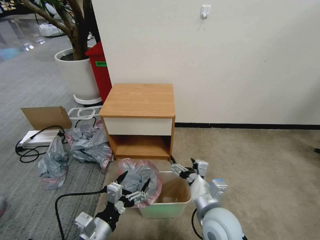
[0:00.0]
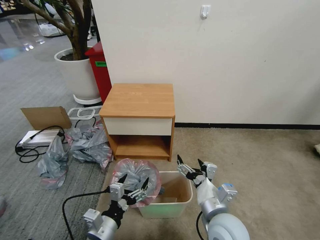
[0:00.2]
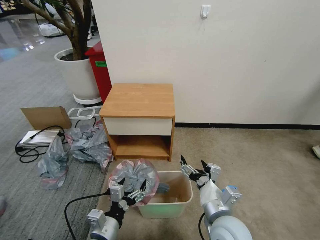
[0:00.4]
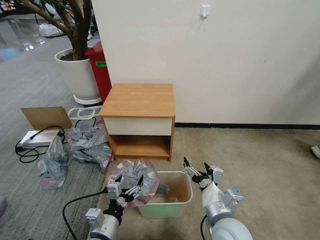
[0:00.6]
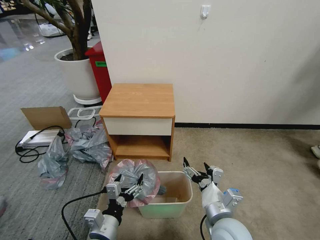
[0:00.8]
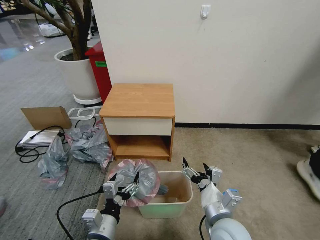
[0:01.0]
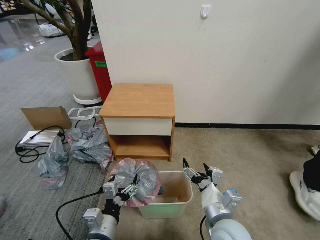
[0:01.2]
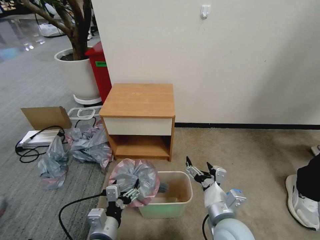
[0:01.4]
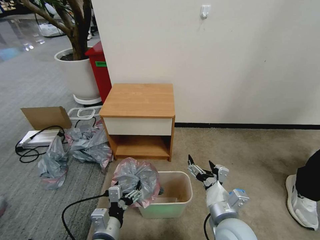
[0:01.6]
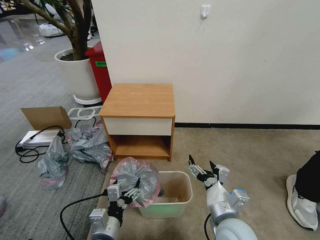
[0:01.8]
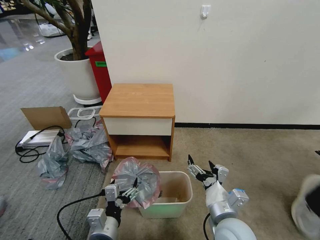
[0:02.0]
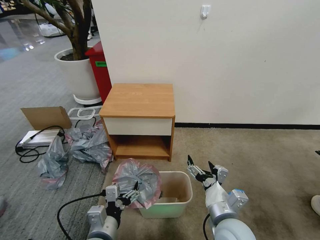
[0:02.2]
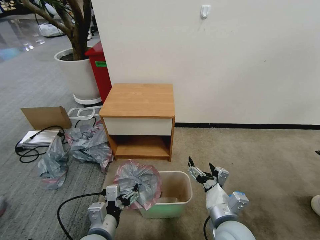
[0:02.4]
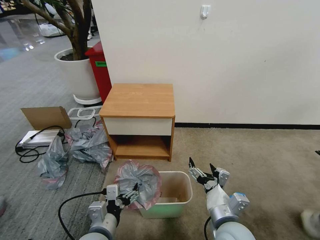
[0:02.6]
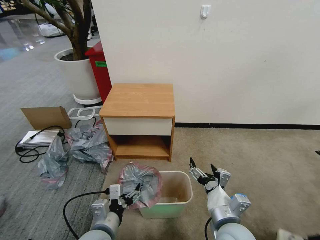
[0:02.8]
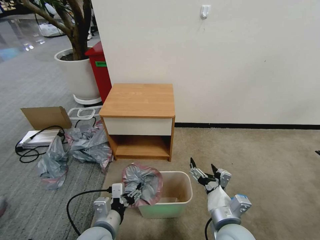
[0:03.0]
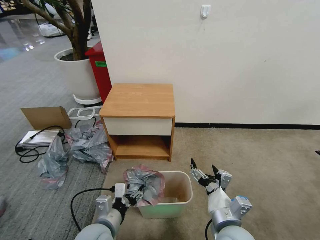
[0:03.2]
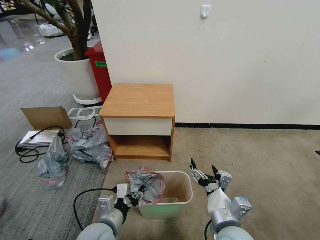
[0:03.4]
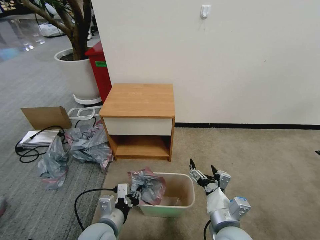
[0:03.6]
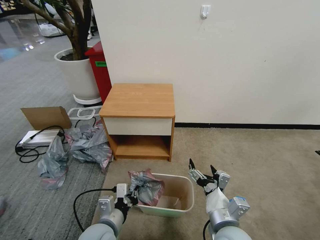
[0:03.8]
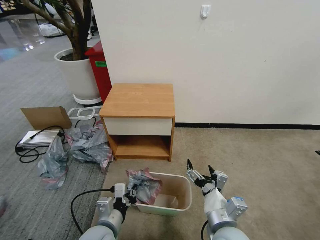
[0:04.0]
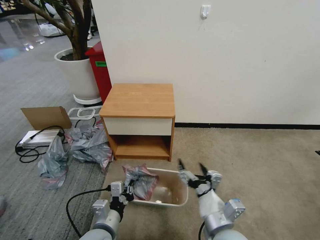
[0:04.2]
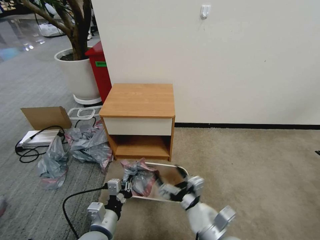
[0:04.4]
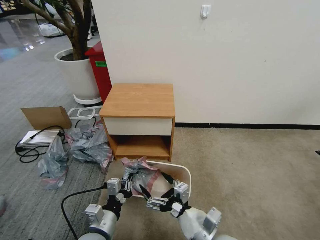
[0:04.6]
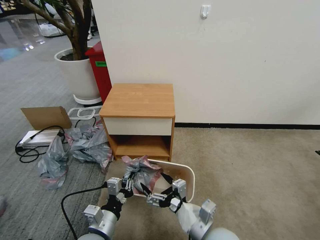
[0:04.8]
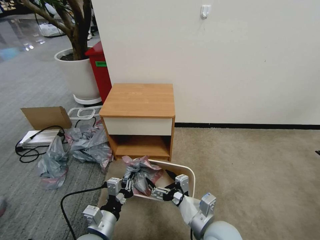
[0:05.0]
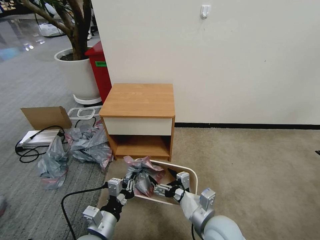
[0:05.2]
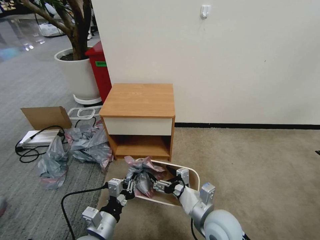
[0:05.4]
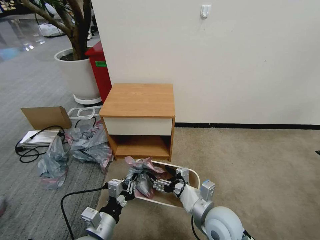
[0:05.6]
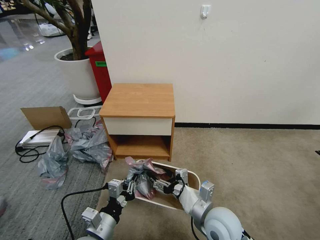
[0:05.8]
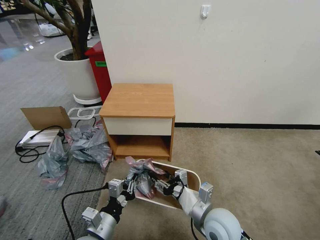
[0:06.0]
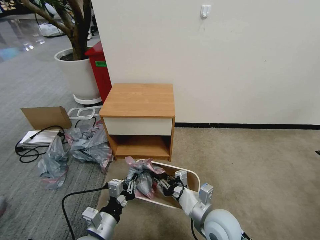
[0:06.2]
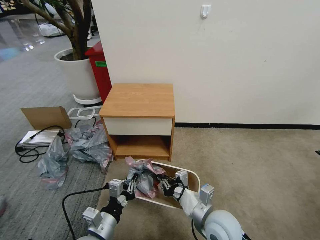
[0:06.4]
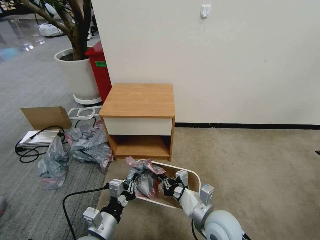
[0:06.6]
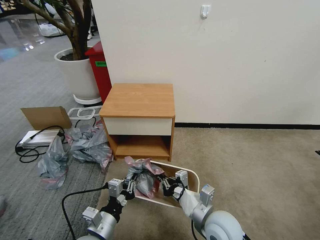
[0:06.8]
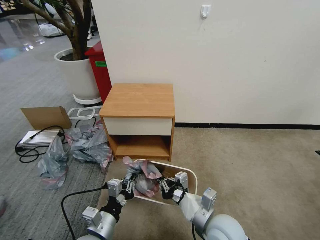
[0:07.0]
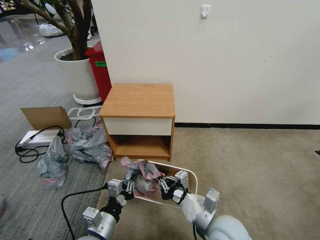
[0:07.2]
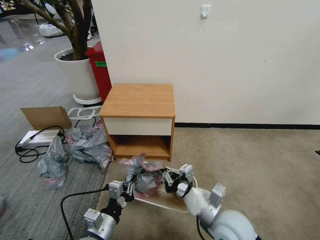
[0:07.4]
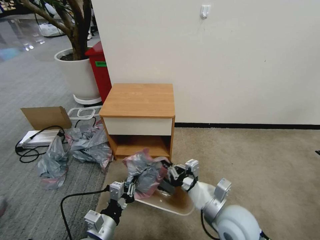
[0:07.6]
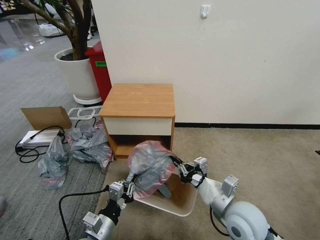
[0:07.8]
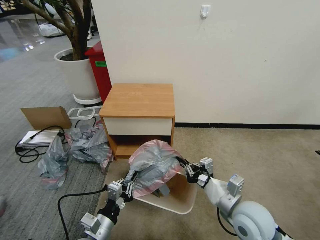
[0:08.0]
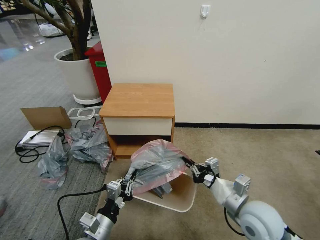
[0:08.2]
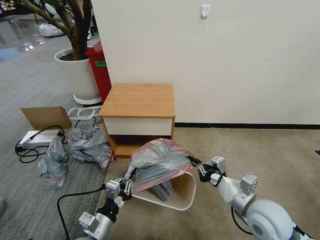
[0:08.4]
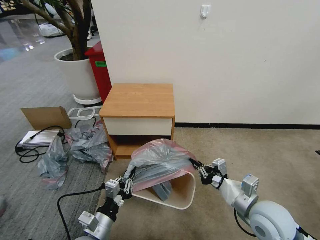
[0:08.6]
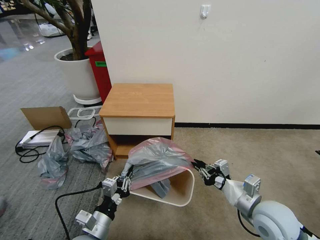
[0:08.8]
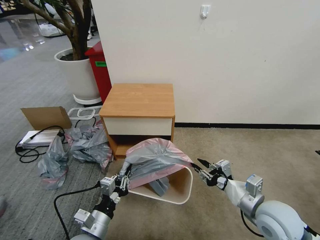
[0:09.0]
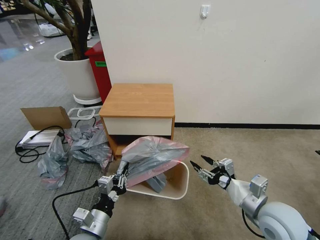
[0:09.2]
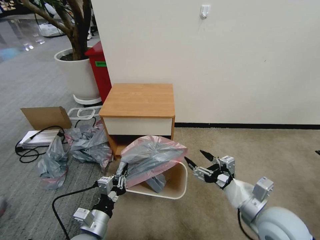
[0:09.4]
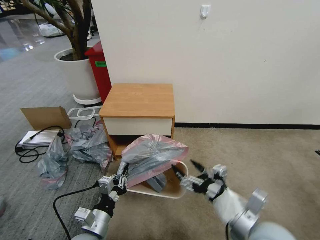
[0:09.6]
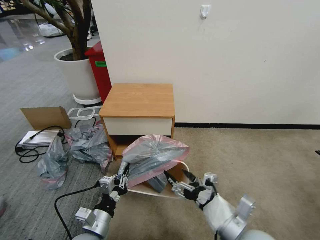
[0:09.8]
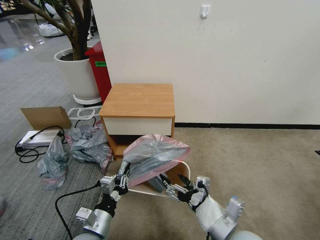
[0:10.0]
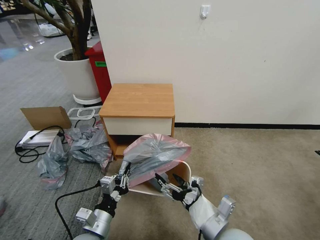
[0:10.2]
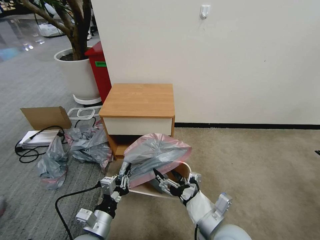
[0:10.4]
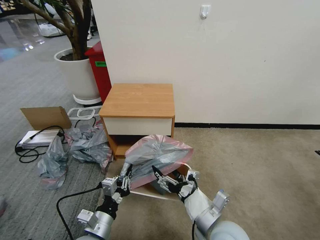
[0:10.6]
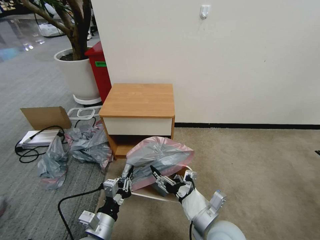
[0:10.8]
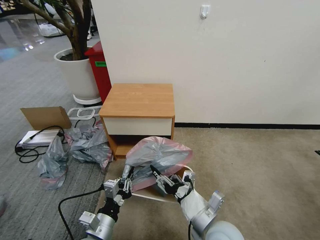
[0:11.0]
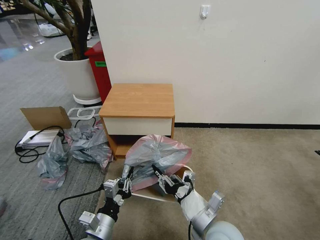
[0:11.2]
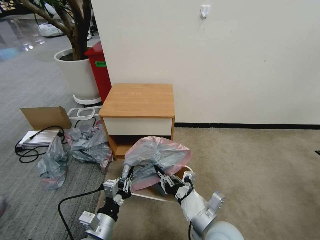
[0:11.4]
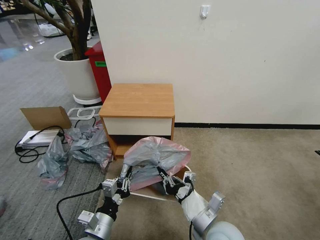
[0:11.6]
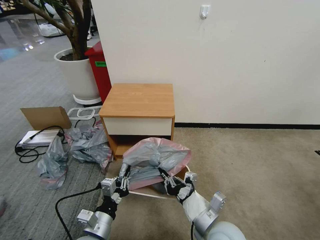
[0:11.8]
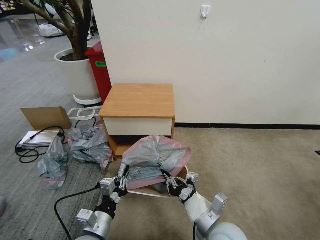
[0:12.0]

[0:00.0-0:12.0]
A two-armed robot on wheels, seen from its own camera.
Task of the whole recording: Pick up the garbage bag from the table and place it over the trash can.
0:00.0 to 0:01.6: The left gripper changes place by some 5 cm.
0:03.0 to 0:04.4: The left gripper closes up.
0:04.4 to 0:06.0: The right gripper moves forward, about 5 cm, and closes.
0:06.0 to 0:07.6: The right gripper moves about 5 cm, and closes up.
0:07.6 to 0:09.0: The right gripper is displaced to the right by about 10 cm, and opens up.
0:09.0 to 0:10.4: The right gripper travels to the left by roughly 15 cm, and opens up.
0:10.4 to 0:12.0: The right gripper closes.

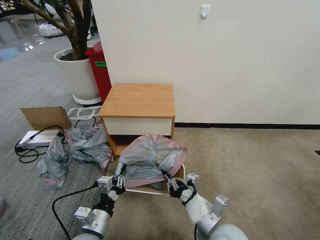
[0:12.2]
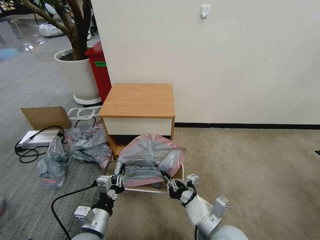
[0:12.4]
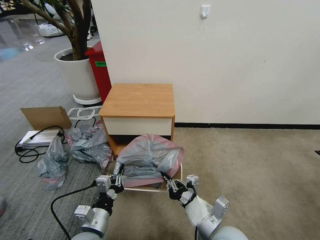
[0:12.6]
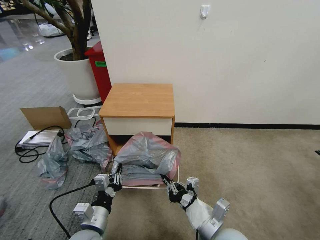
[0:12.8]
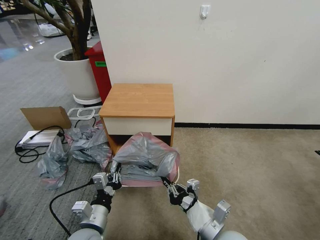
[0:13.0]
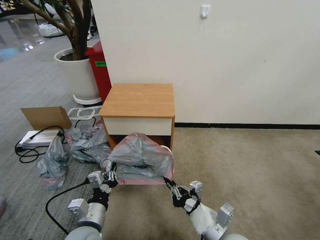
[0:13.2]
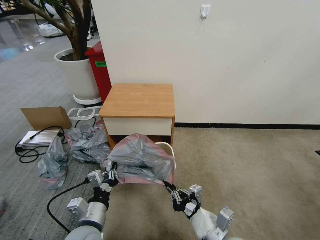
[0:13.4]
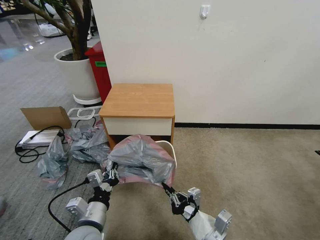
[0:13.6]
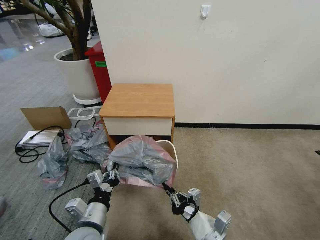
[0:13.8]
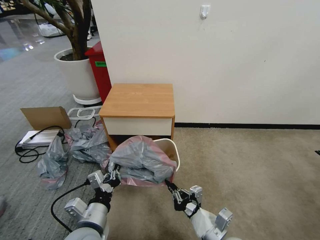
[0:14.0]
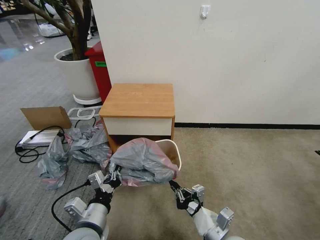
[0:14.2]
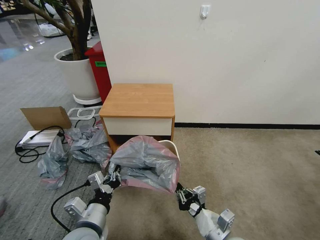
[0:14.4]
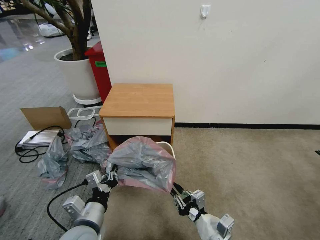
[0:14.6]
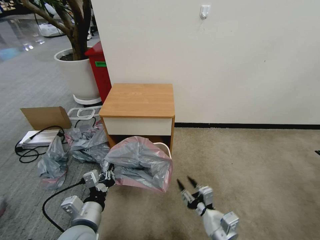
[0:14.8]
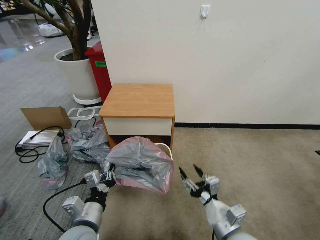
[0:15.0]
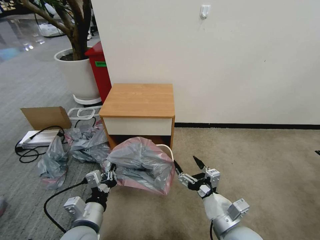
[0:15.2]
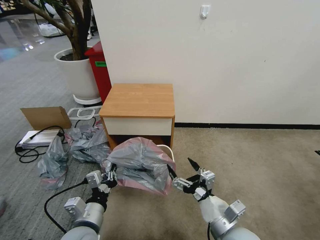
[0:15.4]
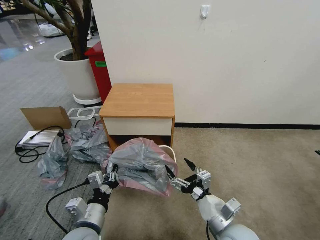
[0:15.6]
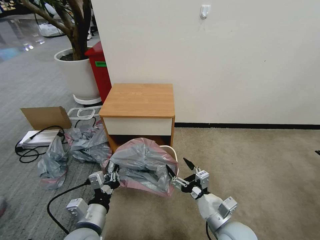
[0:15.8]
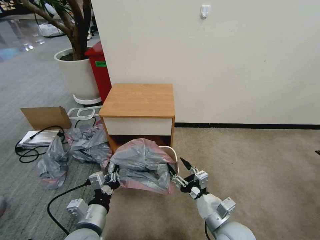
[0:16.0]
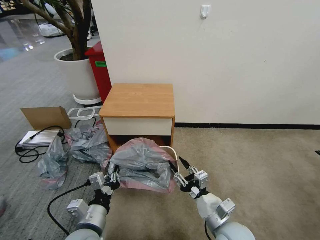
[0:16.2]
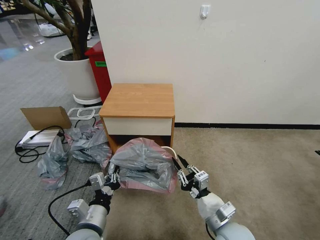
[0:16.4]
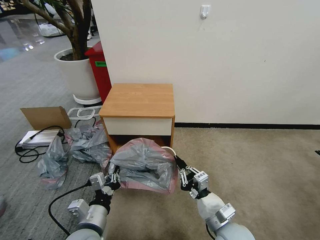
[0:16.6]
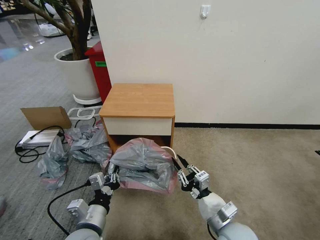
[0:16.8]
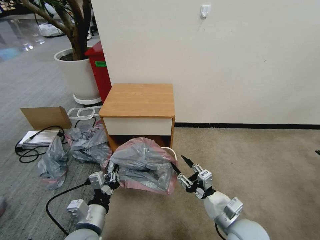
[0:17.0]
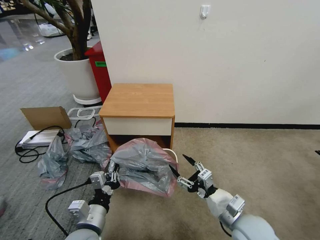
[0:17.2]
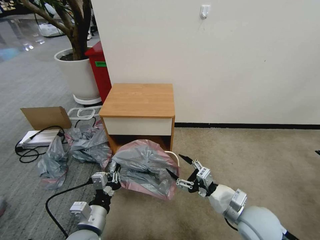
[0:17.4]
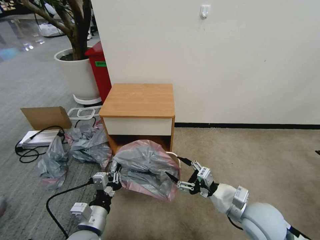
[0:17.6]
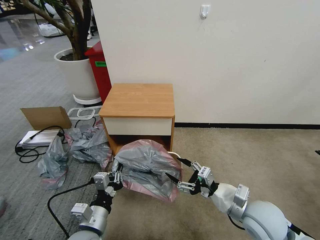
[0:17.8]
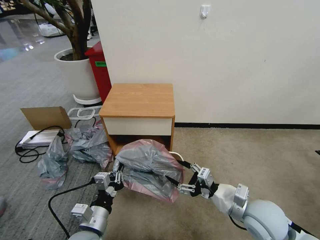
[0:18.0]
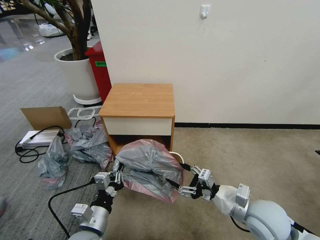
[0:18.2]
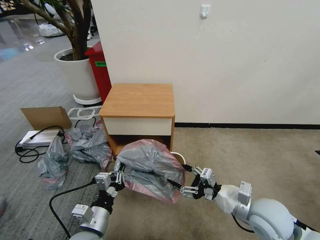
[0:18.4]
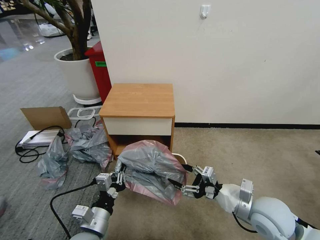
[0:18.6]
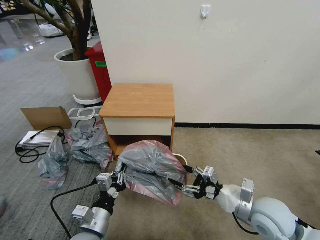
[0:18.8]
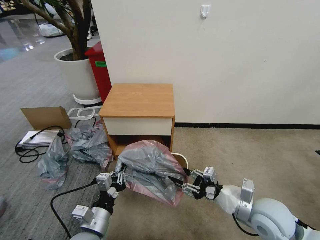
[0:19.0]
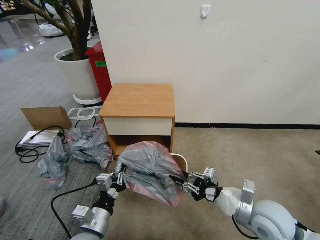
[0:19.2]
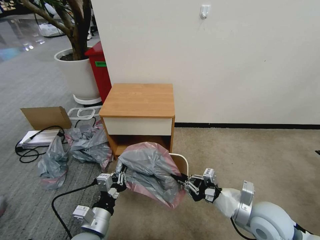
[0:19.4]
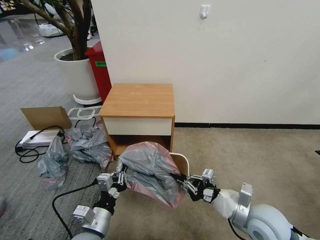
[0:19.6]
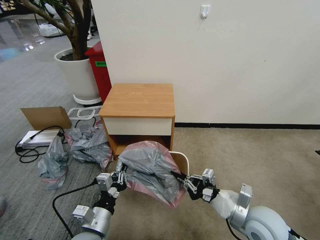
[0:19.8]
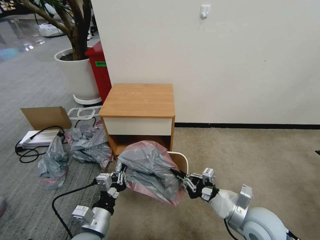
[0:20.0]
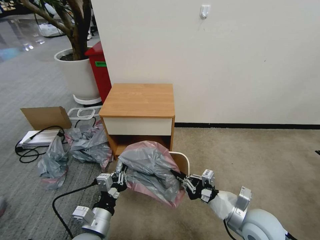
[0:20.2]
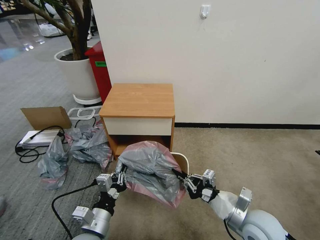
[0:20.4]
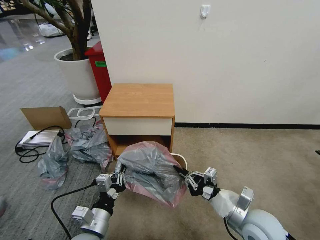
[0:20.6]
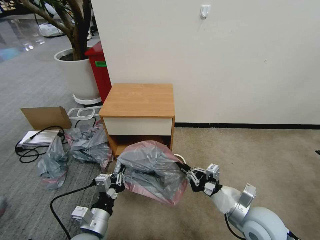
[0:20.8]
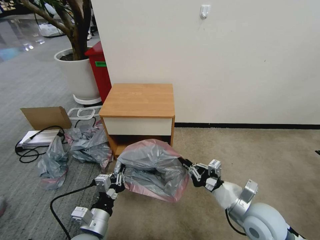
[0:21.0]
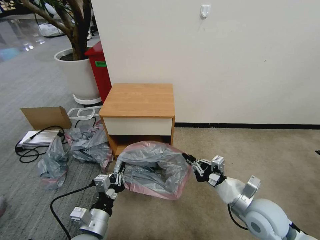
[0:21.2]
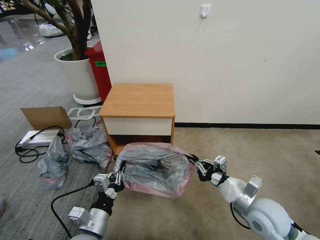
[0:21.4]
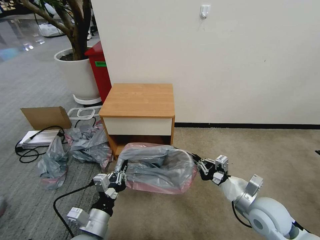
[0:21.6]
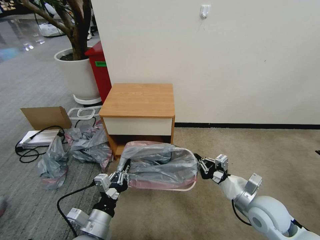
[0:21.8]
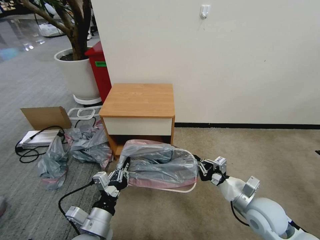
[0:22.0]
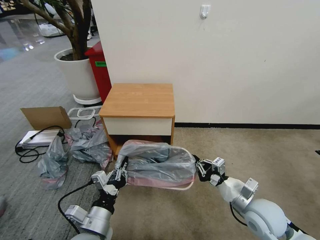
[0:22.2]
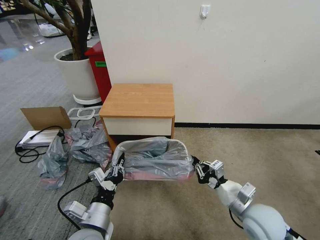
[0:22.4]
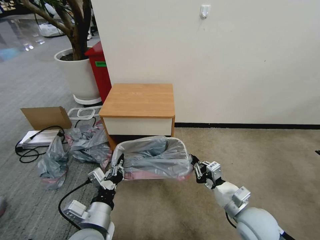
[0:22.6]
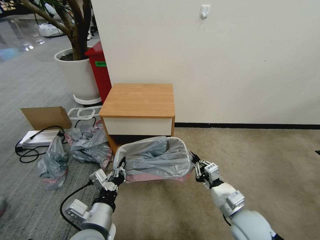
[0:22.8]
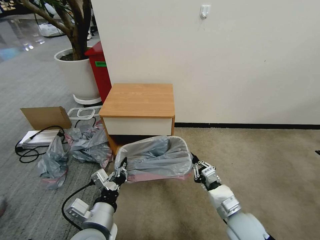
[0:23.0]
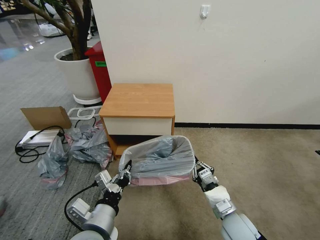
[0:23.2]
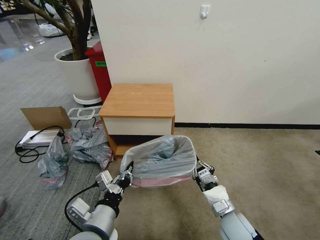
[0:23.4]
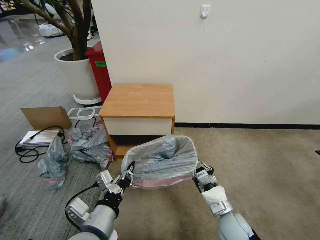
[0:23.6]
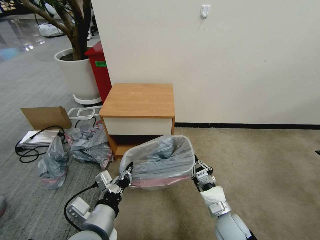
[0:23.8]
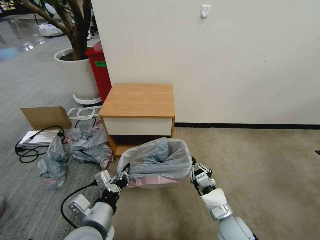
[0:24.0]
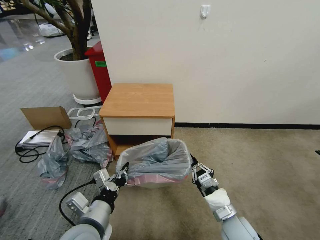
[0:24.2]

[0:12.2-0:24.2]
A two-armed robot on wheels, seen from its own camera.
Task of the whole recording: Pick up the garbage bag from the table and place it over the trash can.
0:12.2 to 0:13.8: The grippers stay close to where they were, moving slightly.
0:13.8 to 0:15.2: The right gripper opens up.
0:15.2 to 0:16.6: The right gripper closes up.
0:16.6 to 0:18.2: The right gripper goes some 10 cm to the right and upward, and opens up.
0:18.2 to 0:19.8: The right gripper closes up.
0:19.8 to 0:21.2: The grippers make only small movements.
0:21.2 to 0:22.6: The left gripper ends up approximately 5 cm from where it was.
0:22.6 to 0:24.2: The right gripper moves downward, approximately 5 cm.
